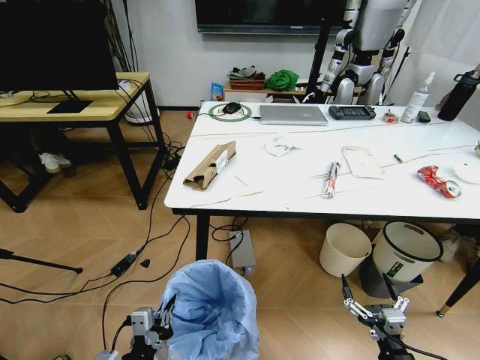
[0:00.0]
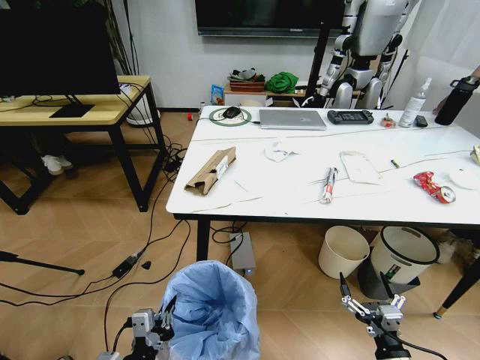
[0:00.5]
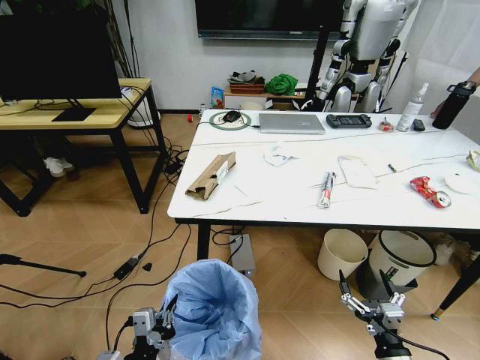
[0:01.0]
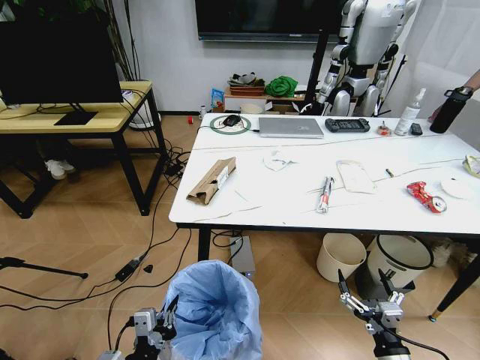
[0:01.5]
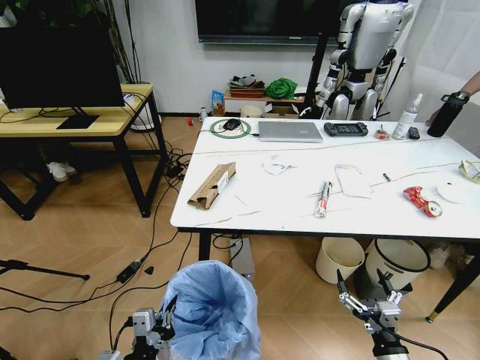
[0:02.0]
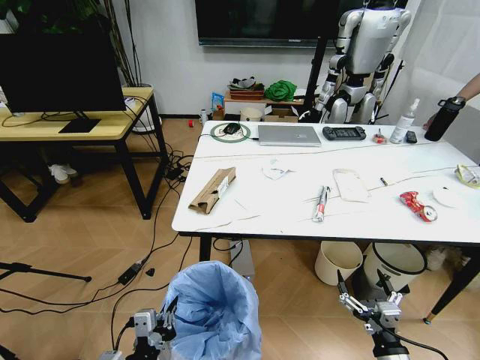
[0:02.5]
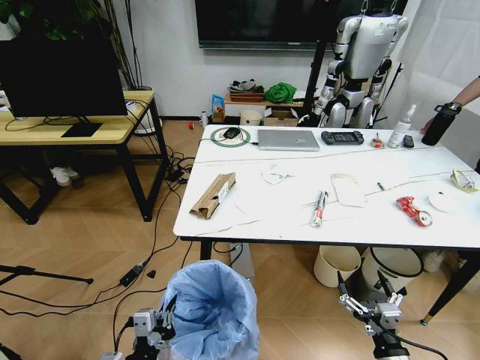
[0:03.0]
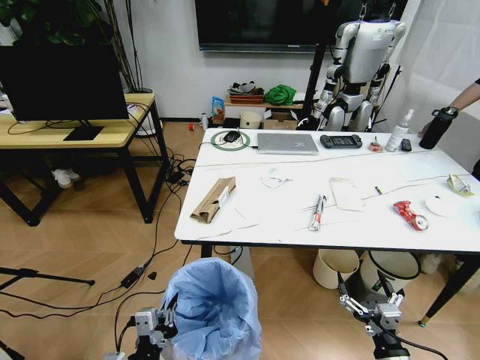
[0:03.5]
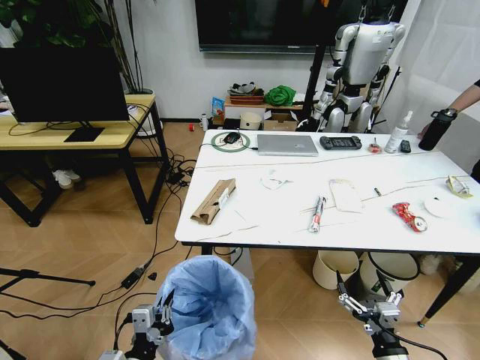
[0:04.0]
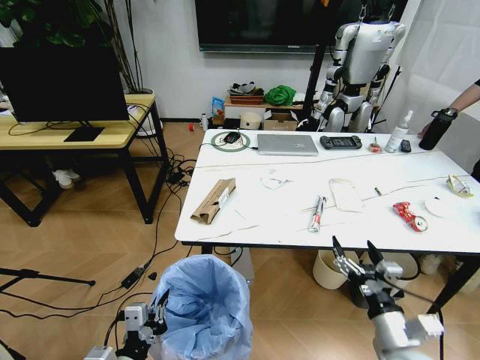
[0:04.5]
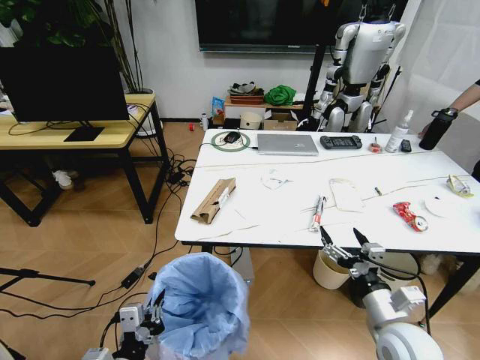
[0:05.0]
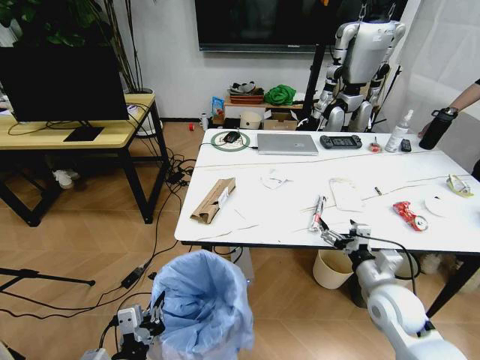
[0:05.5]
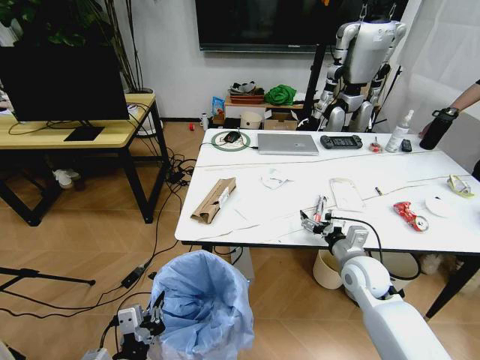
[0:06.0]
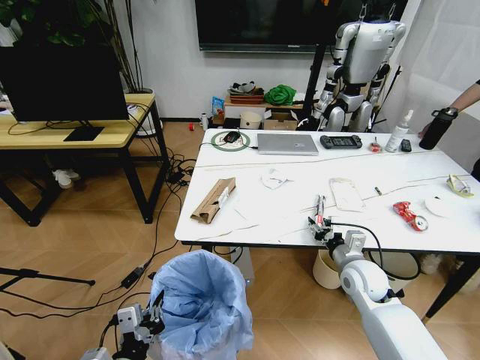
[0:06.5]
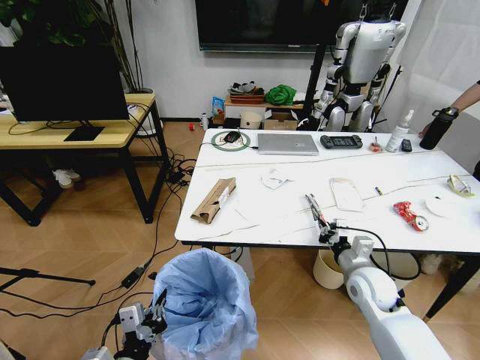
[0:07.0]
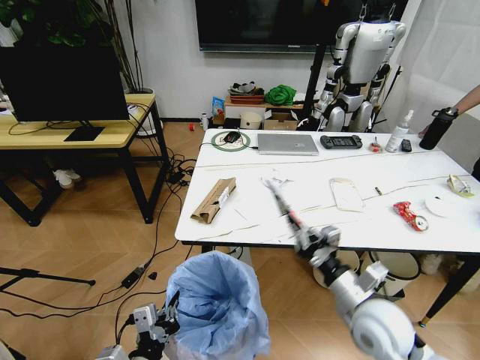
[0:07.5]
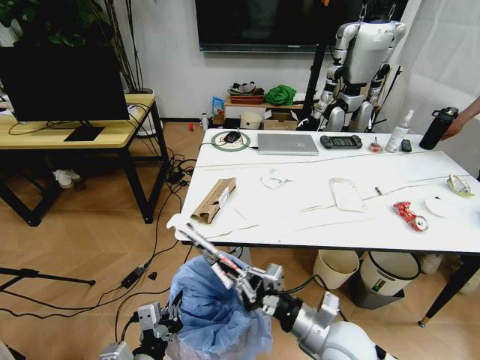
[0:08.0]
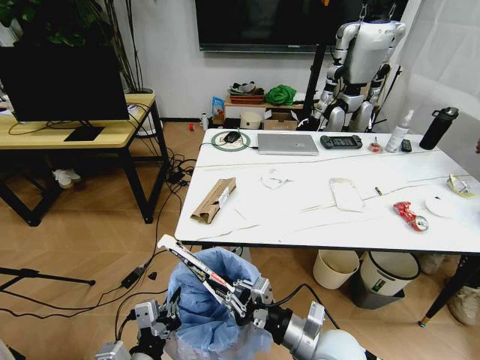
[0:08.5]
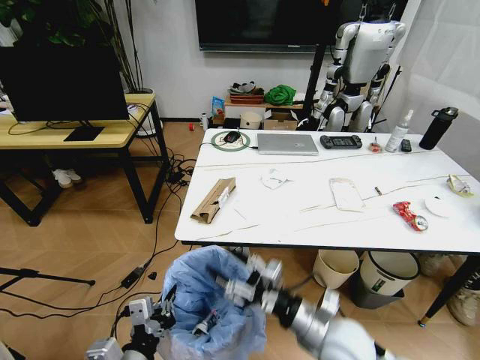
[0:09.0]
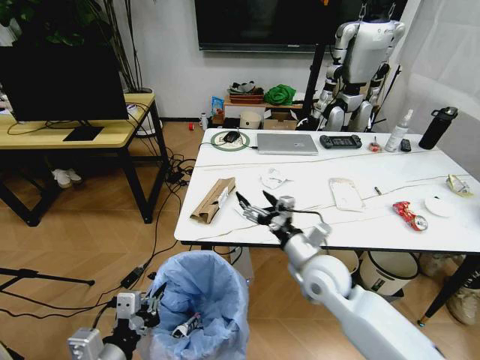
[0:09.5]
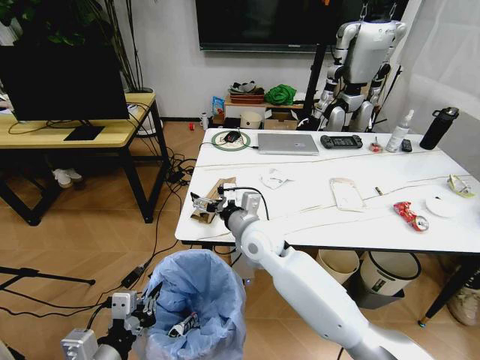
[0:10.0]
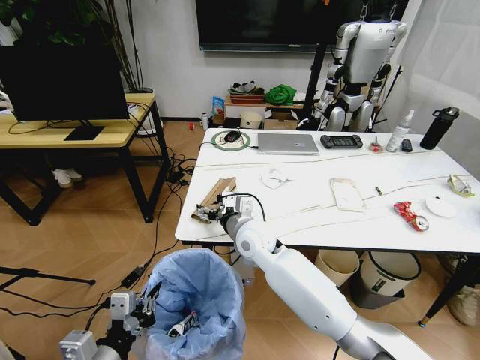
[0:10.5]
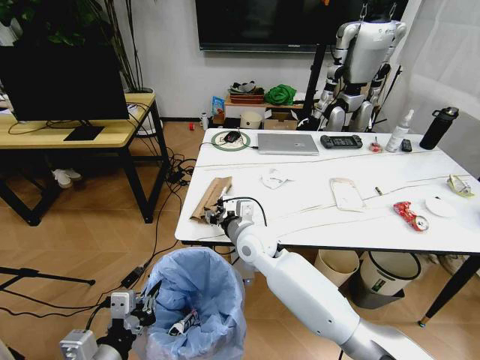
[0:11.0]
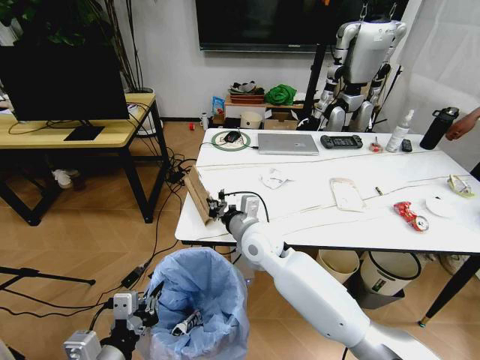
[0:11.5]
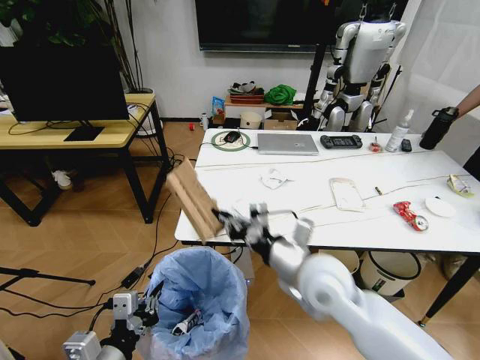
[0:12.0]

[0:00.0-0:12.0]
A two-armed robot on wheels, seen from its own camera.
Task of the whole recording: Pick up the trash bin and place the trash from the table into it.
0:04.0 to 0:06.0: The right gripper shifts some 25 cm forward.
0:06.0 to 0:08.0: The right gripper heads backward and to the left, covering about 20 cm, and closes its fingers.
0:08.0 to 0:10.0: The left gripper travels to the left and upward by about 10 cm; the right gripper goes roughly 25 cm forward and to the left, and opens.
0:10.0 to 0:12.0: The right gripper is displaced backward and to the right by approximately 15 cm, and closes.

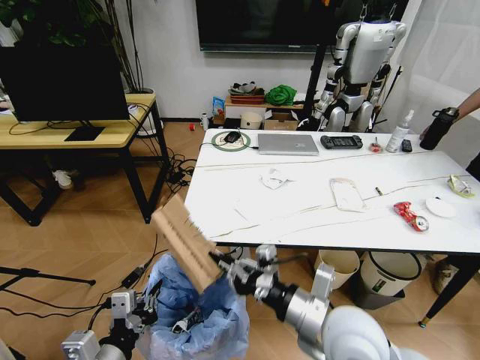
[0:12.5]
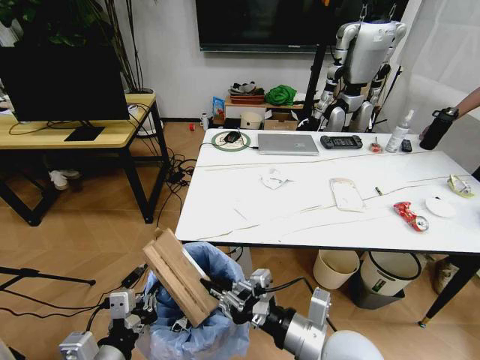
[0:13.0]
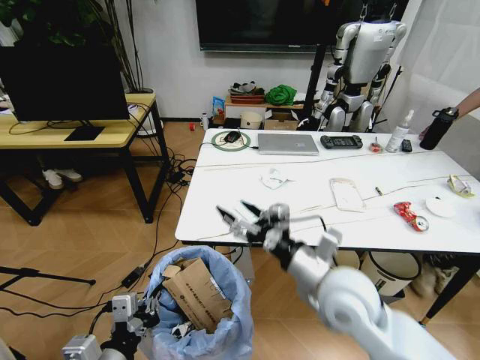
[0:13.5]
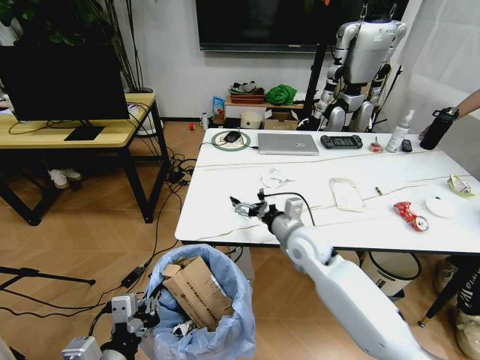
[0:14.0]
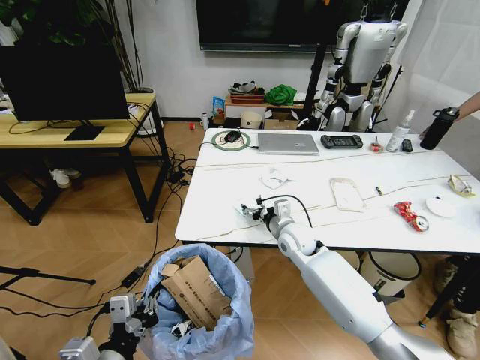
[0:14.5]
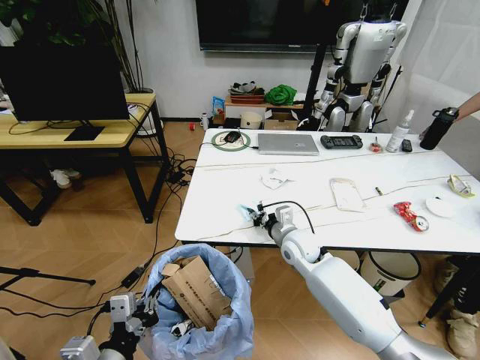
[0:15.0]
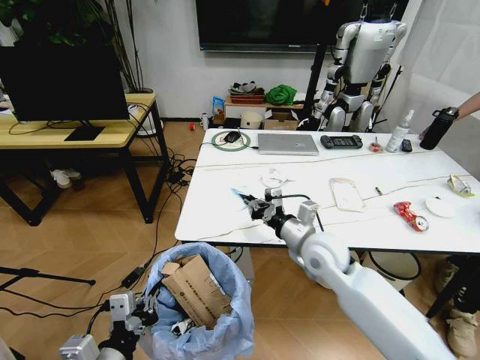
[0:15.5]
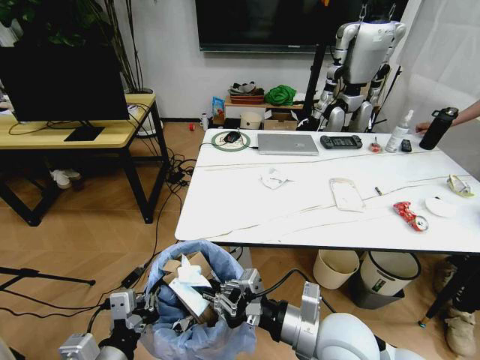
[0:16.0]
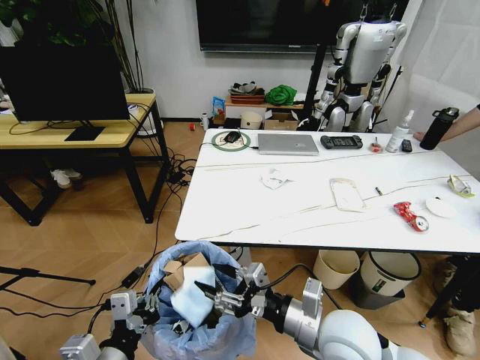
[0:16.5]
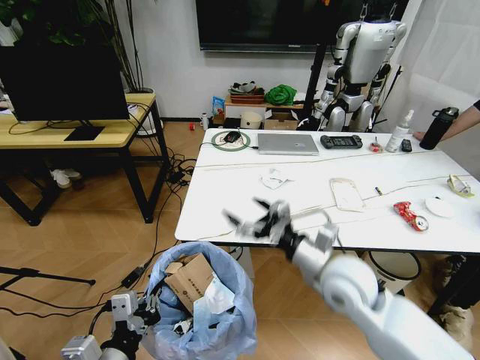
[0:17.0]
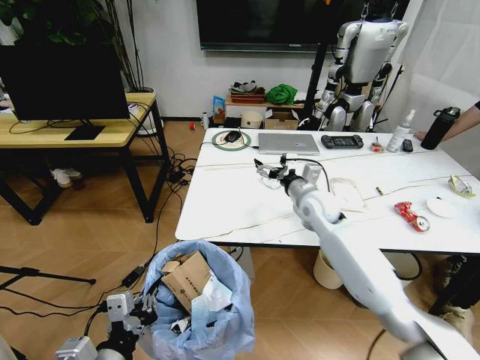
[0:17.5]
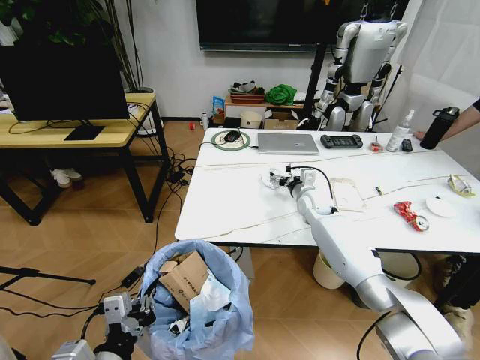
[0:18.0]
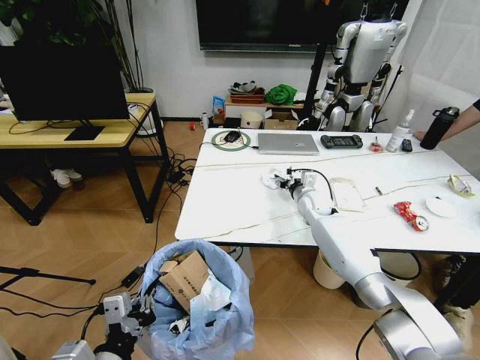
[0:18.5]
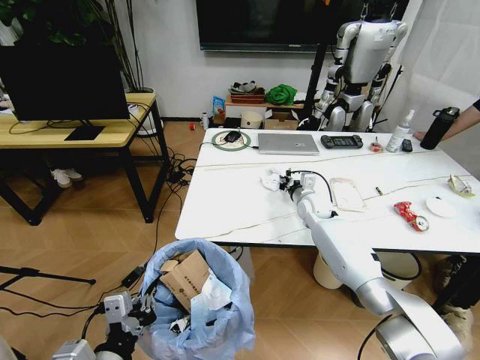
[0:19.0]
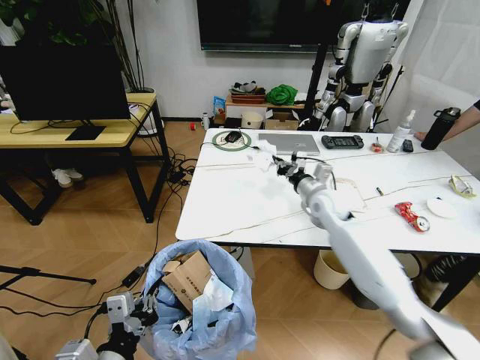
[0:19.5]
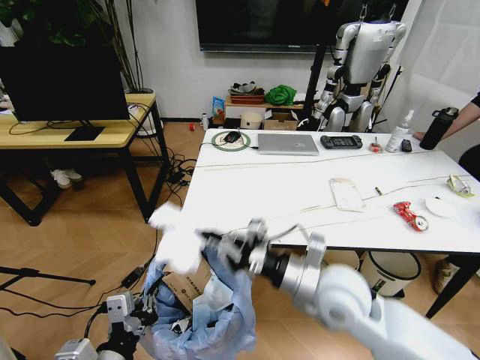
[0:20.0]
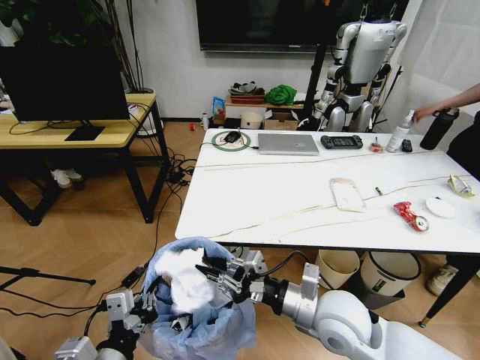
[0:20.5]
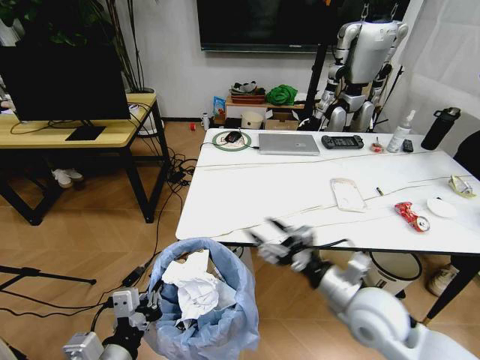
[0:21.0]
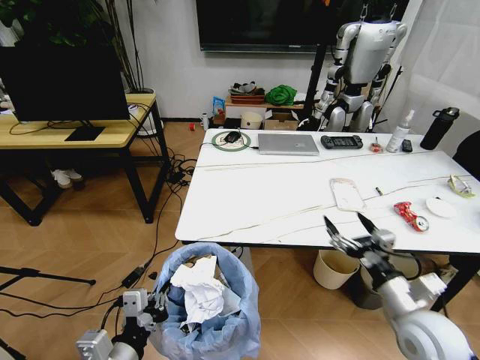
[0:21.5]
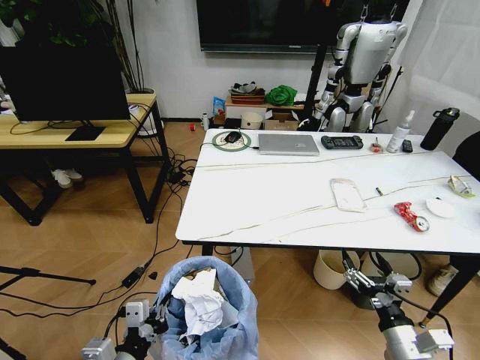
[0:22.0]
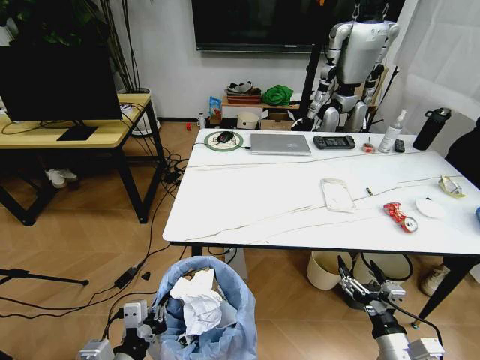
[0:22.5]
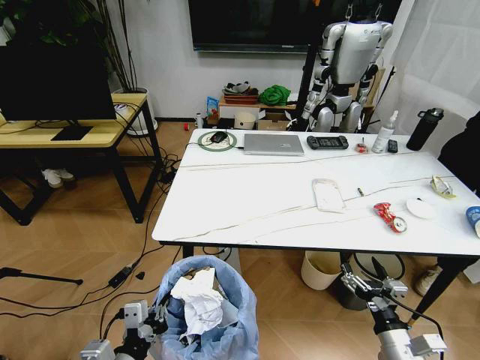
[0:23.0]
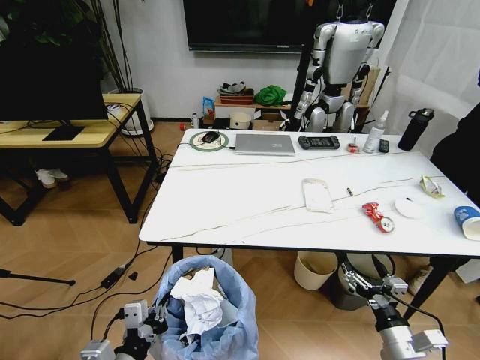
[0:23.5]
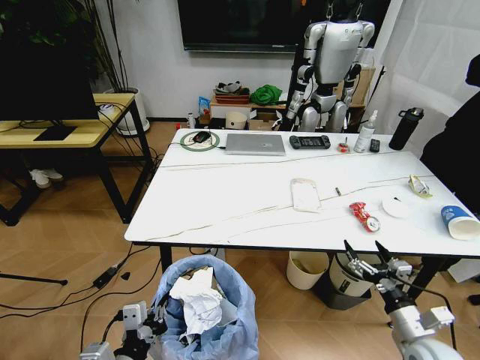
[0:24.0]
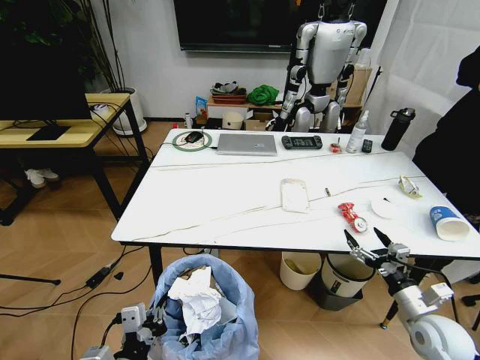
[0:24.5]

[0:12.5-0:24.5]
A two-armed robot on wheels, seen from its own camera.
Task of the whole recording: Pick up the trash bin and place the trash from the table into it.
0:12.5 to 0:14.5: The right gripper is displaced forward by approximately 25 cm, and opens.
0:14.5 to 0:16.5: The right gripper travels backward by some 25 cm, and closes, then reopens.
0:16.5 to 0:18.5: The right gripper shifts approximately 35 cm forward, and opens, then closes once more.
0:18.5 to 0:20.5: The right gripper heads backward, covering approximately 35 cm, and closes its fingers.
0:20.5 to 0:22.5: The right gripper travels to the right, downward and backward by about 25 cm, and opens its fingers.
0:22.5 to 0:24.5: The right gripper heads forward and to the right, covering some 15 cm.

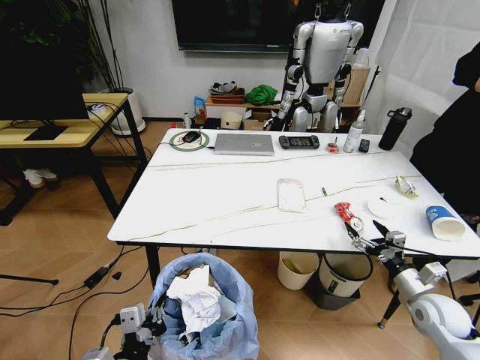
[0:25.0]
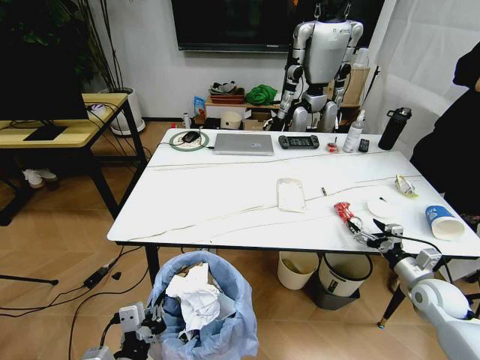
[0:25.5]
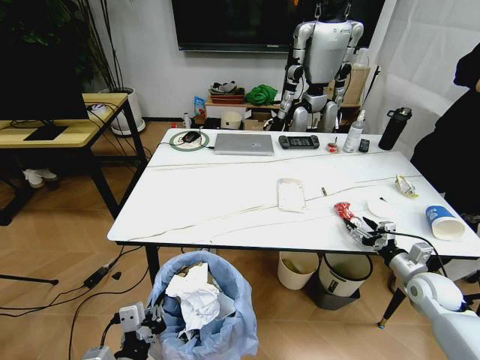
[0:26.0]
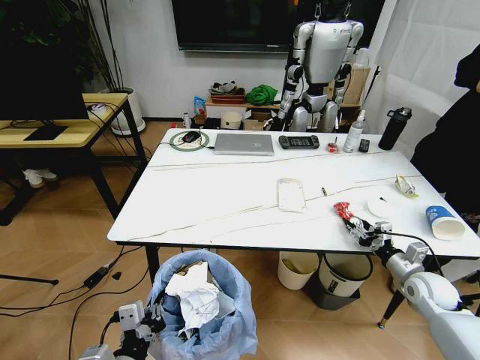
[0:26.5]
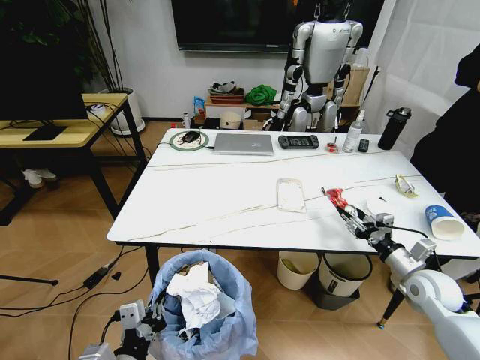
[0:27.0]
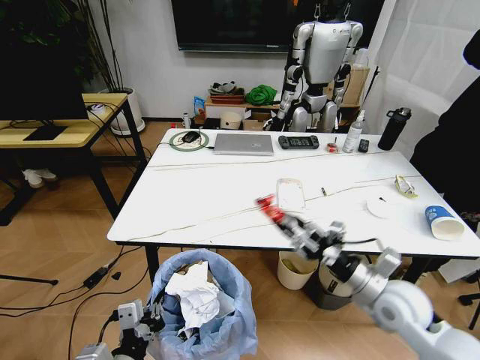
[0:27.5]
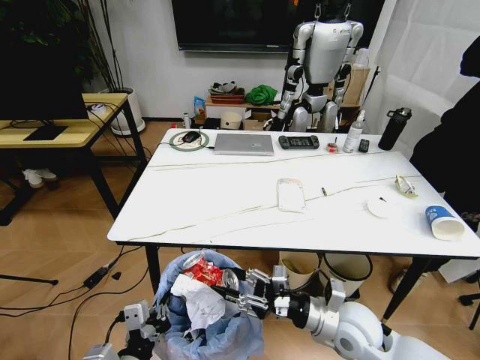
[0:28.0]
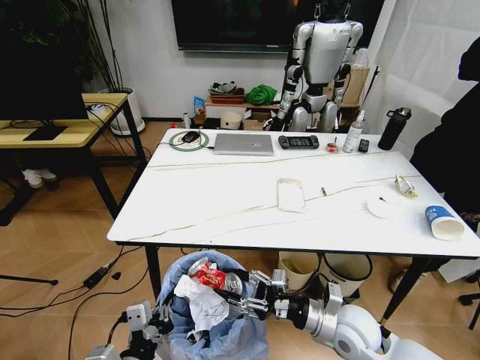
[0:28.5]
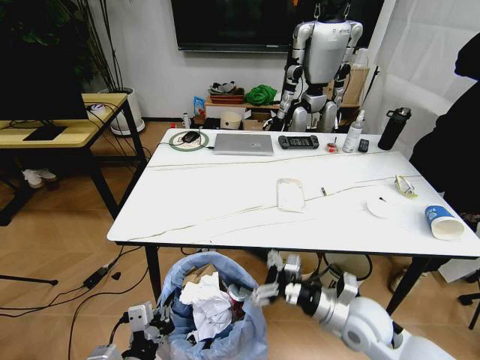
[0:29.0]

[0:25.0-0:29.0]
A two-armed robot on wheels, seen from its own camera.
Task of the whole recording: Pick up the trash bin and place the trash from the table into it.
0:25.0 to 0:27.0: The right gripper moves roughly 5 cm, and closes its fingers.
0:27.0 to 0:29.0: The right gripper goes approximately 20 cm to the left, and opens.
